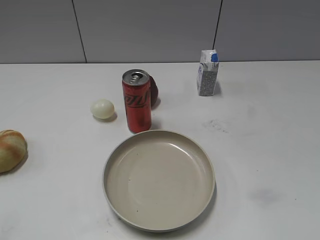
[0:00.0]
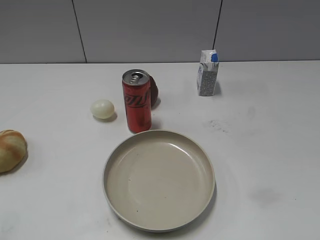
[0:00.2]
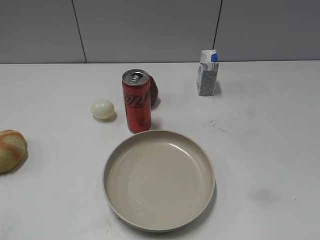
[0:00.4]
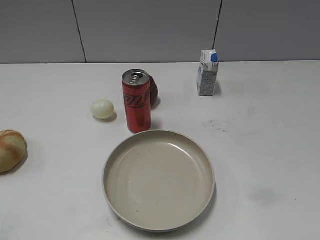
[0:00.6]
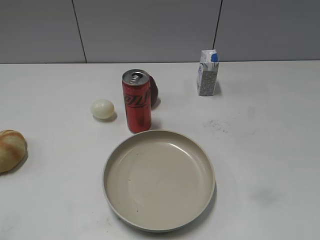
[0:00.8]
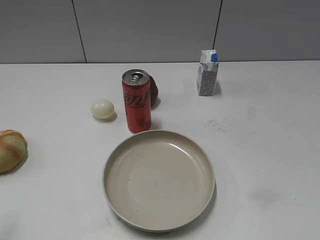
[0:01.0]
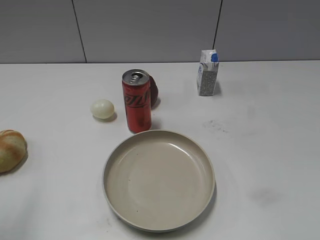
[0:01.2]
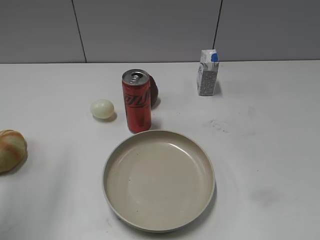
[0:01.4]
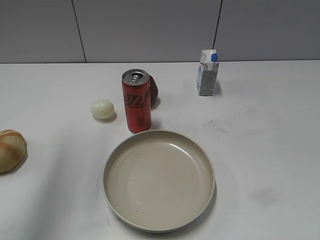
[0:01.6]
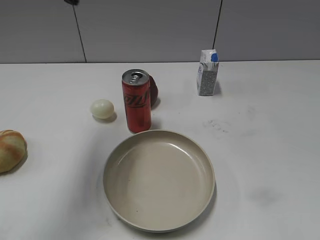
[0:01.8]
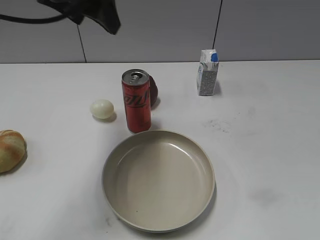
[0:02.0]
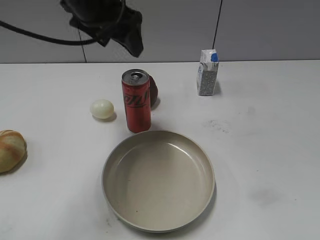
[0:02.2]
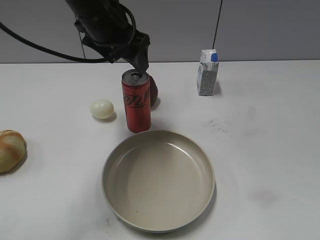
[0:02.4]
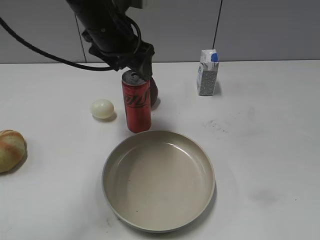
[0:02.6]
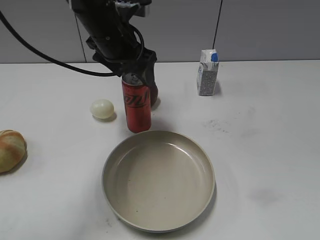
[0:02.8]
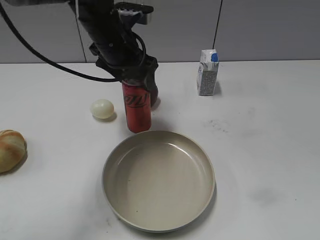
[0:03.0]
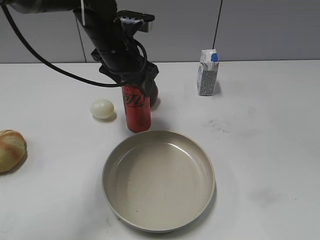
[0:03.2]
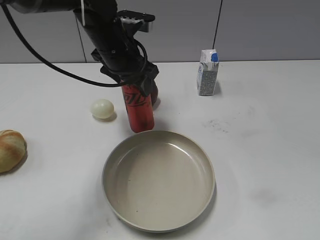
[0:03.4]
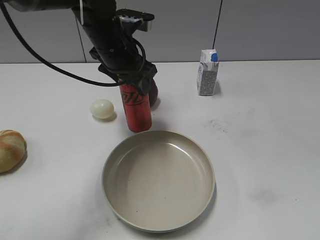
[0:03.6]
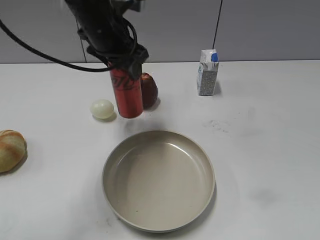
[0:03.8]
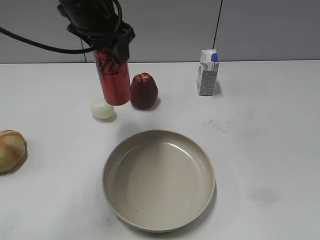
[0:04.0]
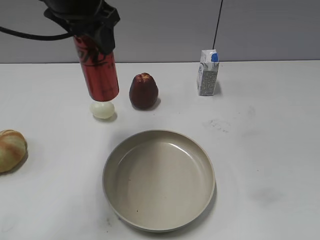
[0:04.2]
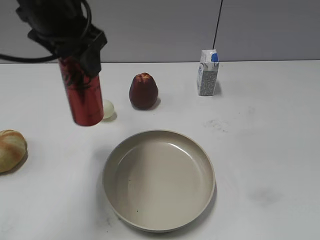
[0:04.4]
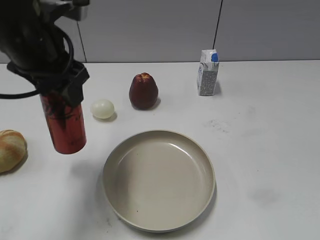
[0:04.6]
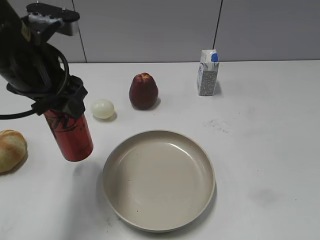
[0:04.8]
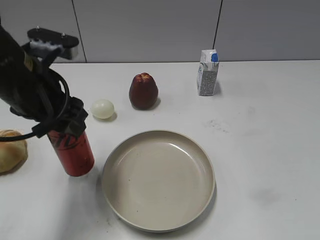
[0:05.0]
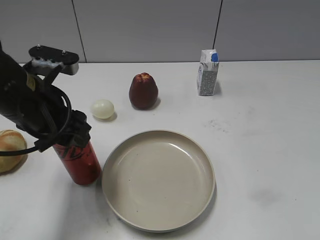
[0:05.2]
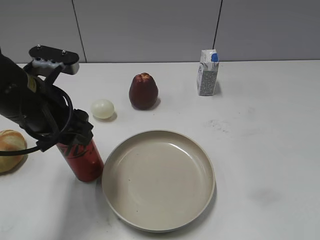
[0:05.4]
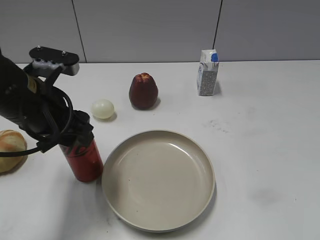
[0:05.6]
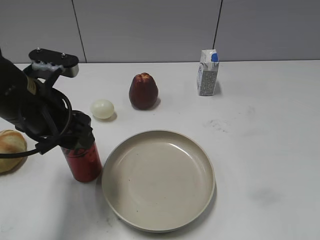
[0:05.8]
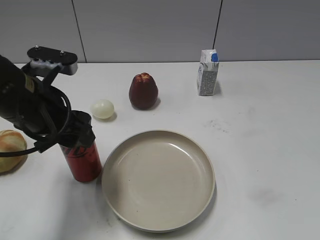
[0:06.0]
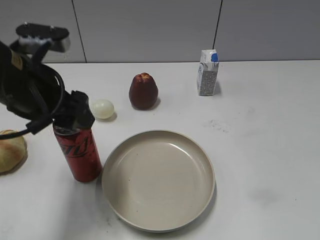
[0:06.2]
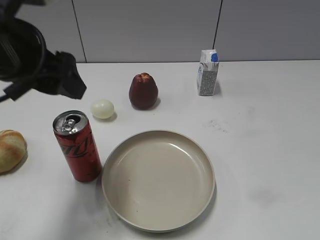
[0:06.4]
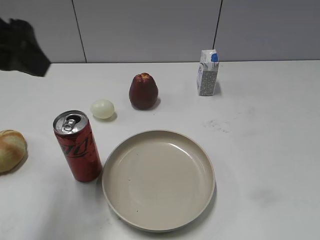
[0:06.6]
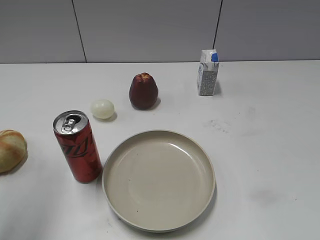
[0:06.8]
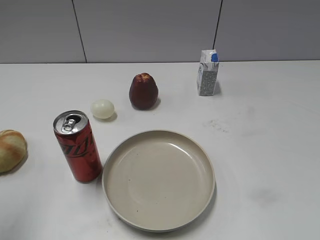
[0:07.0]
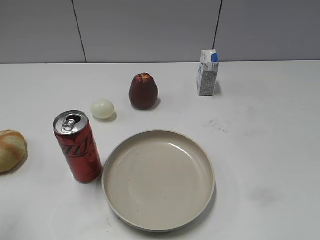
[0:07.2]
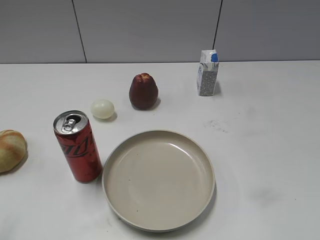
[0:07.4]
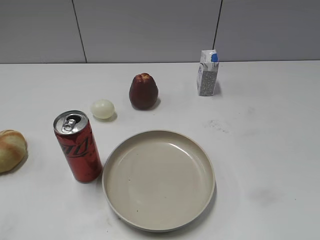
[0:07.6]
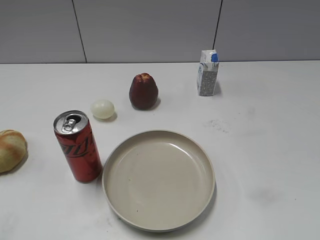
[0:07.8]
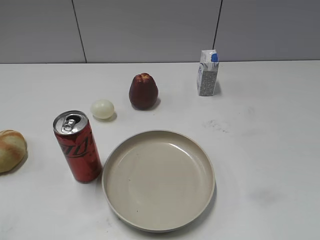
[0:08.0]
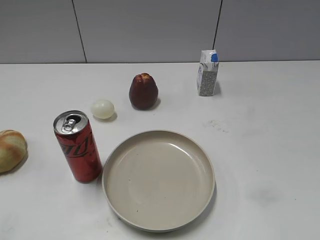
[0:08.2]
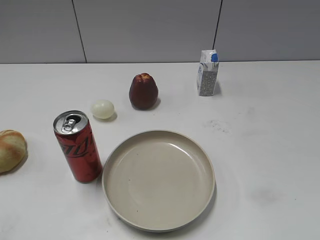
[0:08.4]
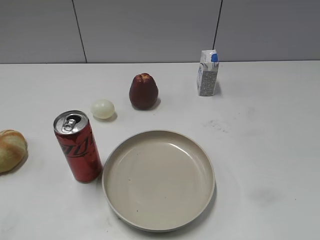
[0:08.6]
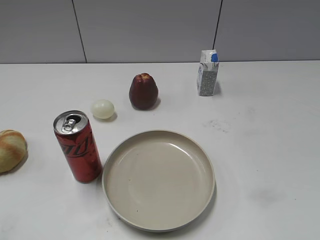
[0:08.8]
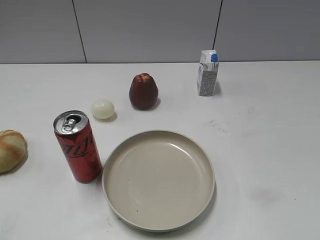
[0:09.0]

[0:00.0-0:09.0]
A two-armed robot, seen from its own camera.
Step, 0:00.6 to 0:03.4: Grasp the cola with left gripper.
Step, 0:03.6 to 0:06.2: Place the cola on the table with left gripper.
0:01.6 to 0:03.0: The left gripper heads downward, to the right and forward, covering about 25 cm.
0:03.0 to 0:04.4: The left gripper goes roughly 15 cm upward, backward and to the left, and closes up.
0:04.4 to 0:06.0: The left gripper travels downward and backward by approximately 10 cm, and opens its fingers.
0:06.0 to 0:07.6: The left gripper heads backward, to the left and upward, covering about 30 cm.

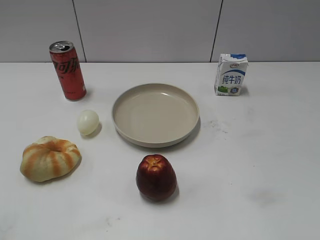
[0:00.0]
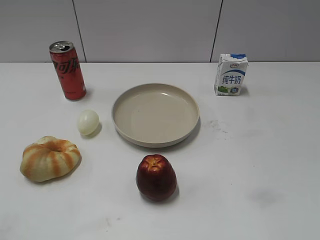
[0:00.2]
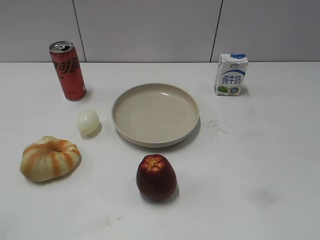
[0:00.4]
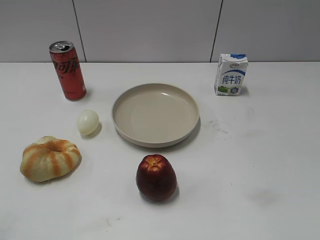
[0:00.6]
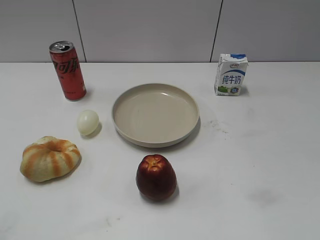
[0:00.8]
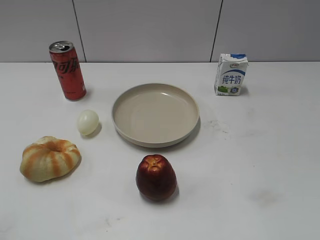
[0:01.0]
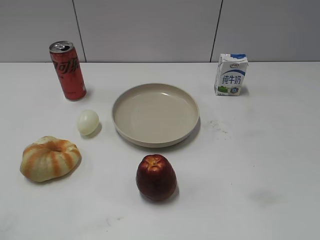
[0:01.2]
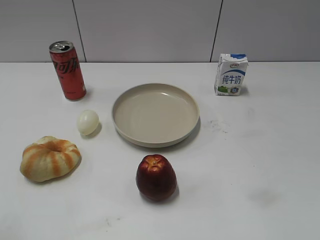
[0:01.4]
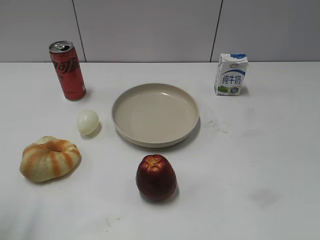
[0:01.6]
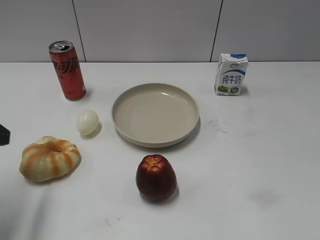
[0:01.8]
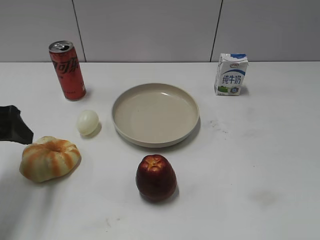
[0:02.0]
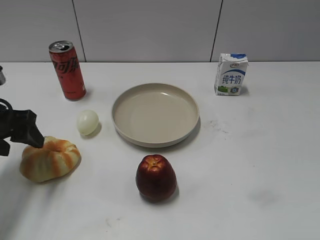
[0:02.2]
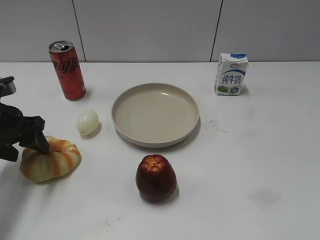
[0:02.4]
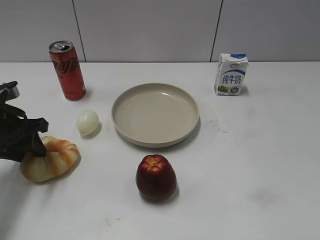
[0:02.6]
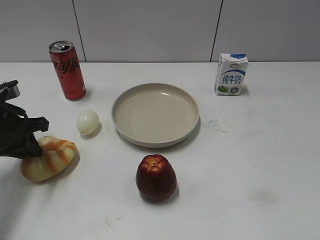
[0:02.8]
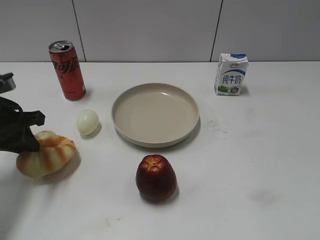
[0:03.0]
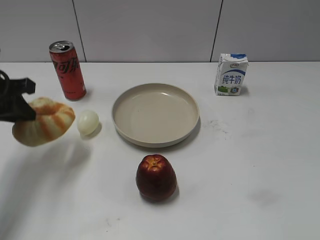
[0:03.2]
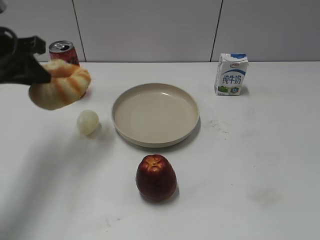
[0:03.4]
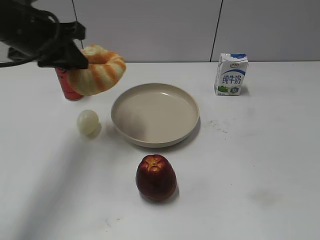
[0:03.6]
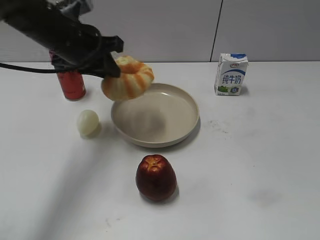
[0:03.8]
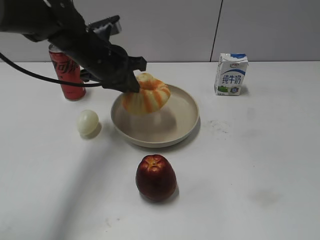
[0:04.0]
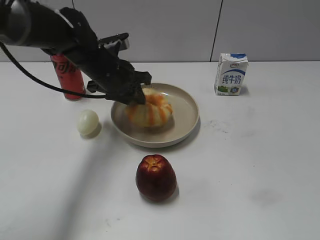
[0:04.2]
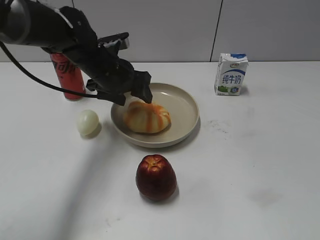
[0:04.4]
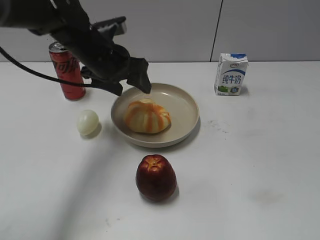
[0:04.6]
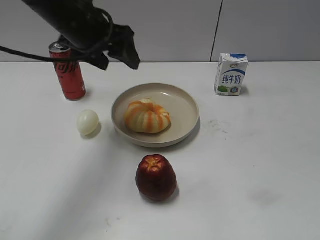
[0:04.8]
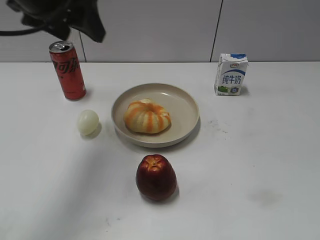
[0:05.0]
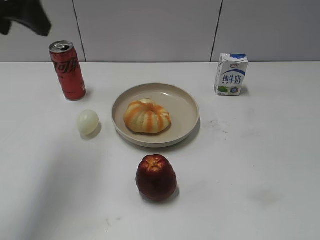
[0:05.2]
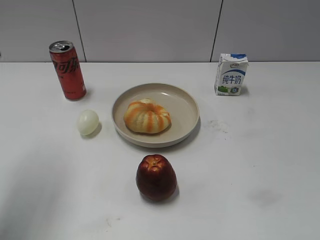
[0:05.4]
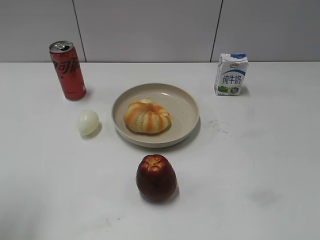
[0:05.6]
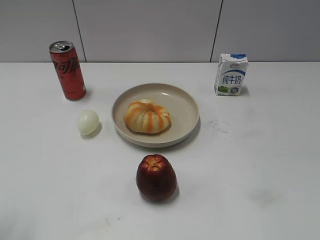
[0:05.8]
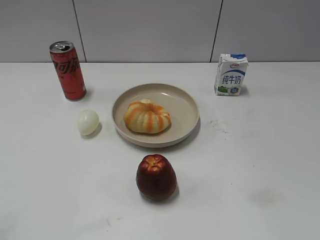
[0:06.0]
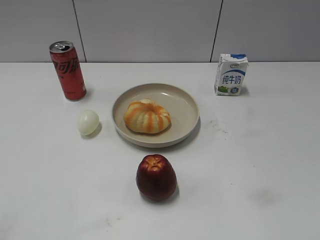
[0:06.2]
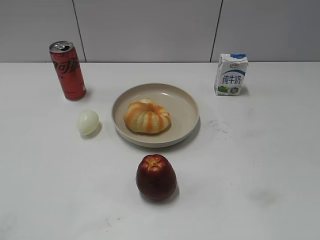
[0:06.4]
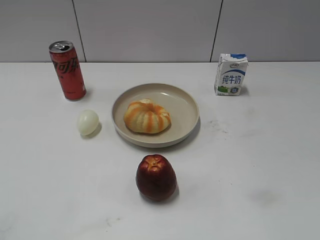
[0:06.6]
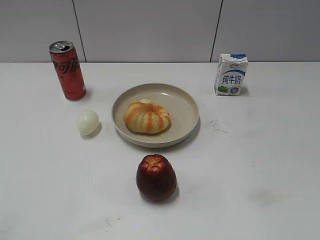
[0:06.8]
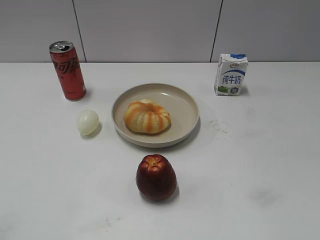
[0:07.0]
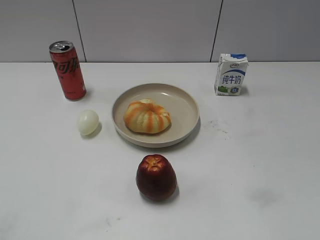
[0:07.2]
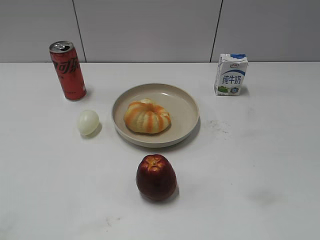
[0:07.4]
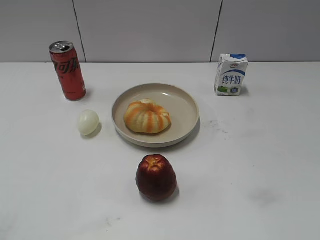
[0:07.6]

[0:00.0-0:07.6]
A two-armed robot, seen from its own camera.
Step, 0:00.0 to 0:02.6: Grasp the round bread with left gripper.
Step, 0:03.0 to 0:04.6: Place the round bread on the plate with left gripper.
0:01.6 to 0:03.0: The left gripper travels forward and downward by about 15 cm, and closes.
0:03.0 to 0:04.6: The left gripper moves to the right and forward, some 20 cm, and opens up.
0:04.6 to 0:06.0: The left gripper is displaced backward and to the left by approximately 40 cm.
